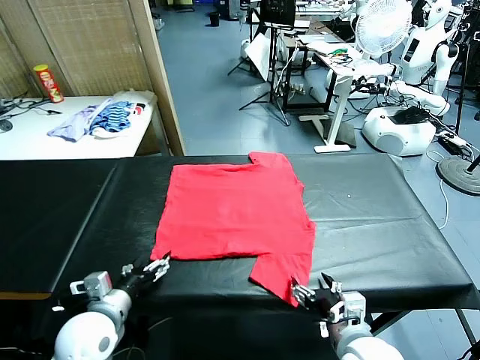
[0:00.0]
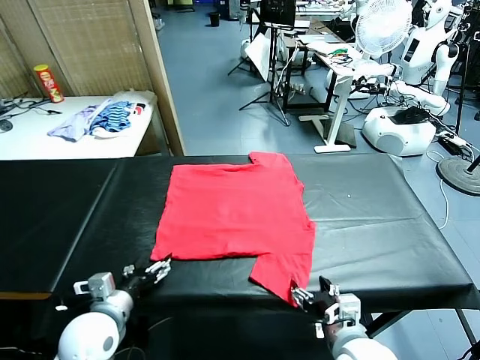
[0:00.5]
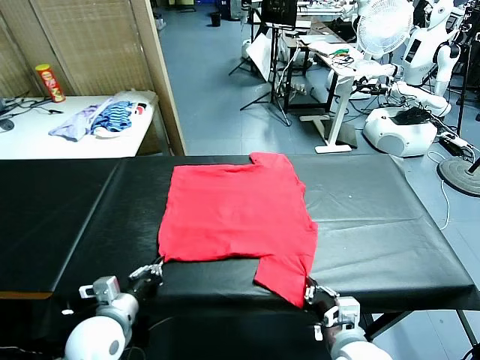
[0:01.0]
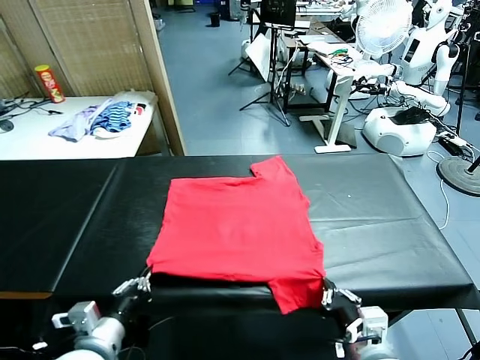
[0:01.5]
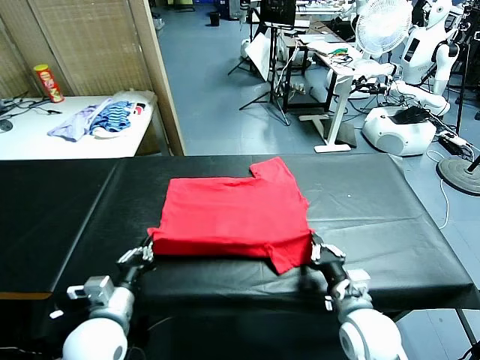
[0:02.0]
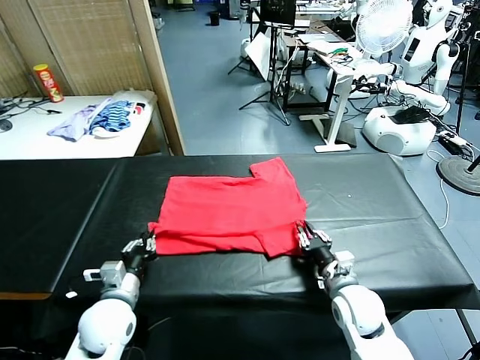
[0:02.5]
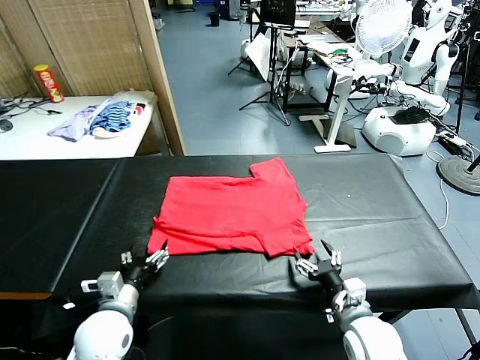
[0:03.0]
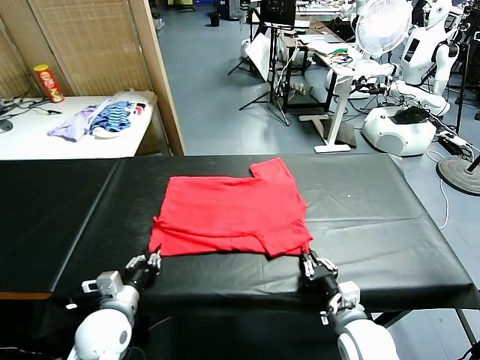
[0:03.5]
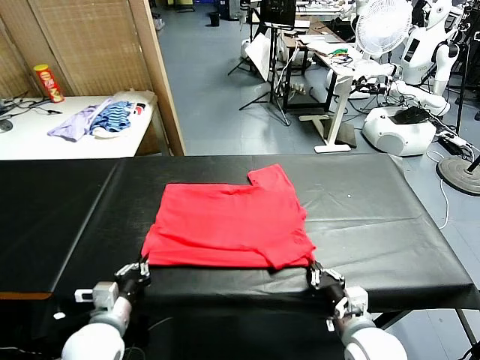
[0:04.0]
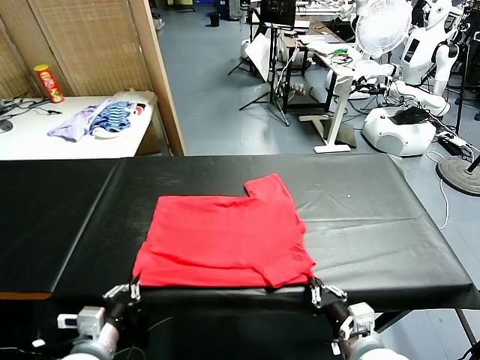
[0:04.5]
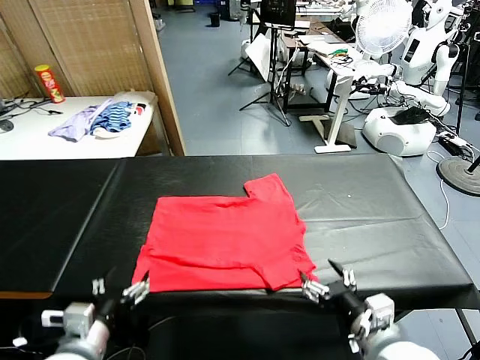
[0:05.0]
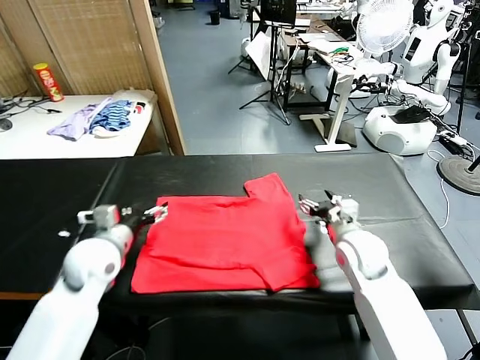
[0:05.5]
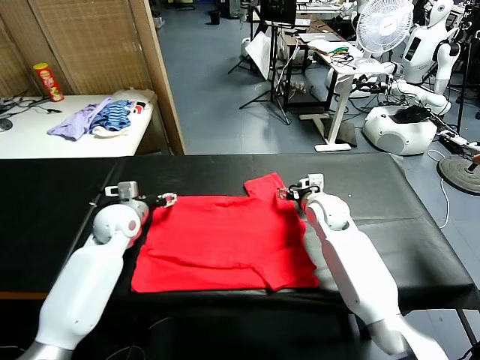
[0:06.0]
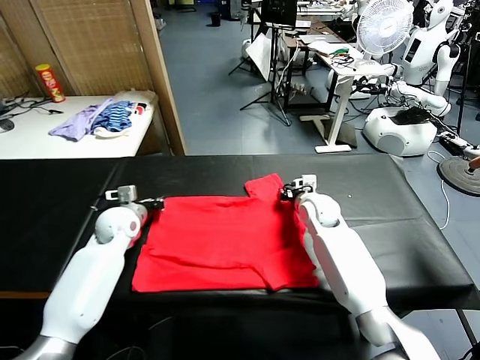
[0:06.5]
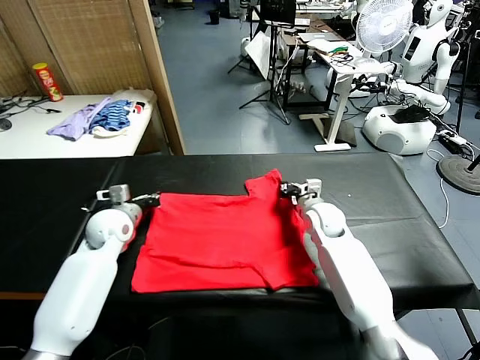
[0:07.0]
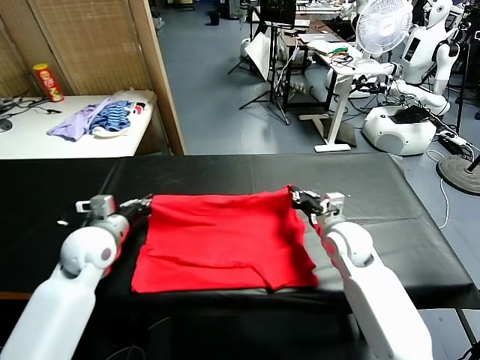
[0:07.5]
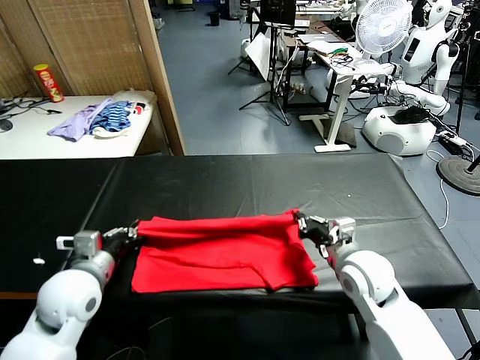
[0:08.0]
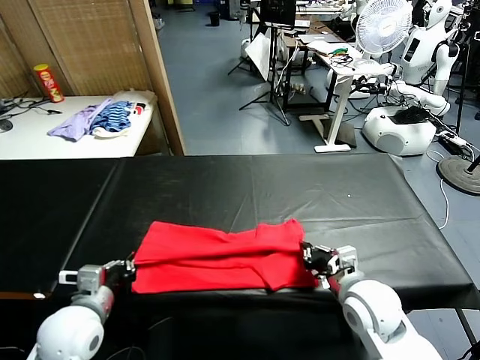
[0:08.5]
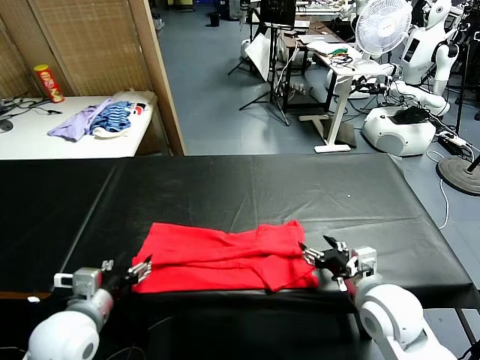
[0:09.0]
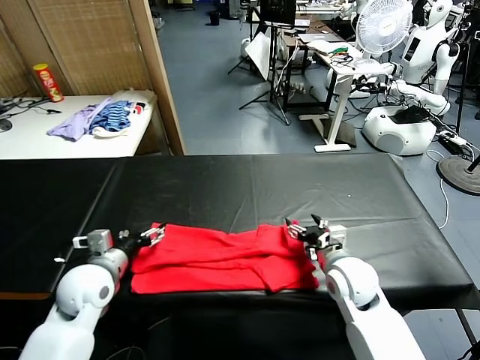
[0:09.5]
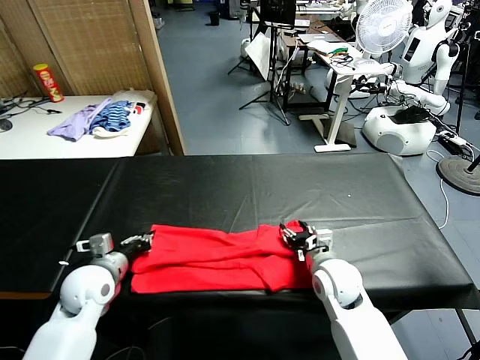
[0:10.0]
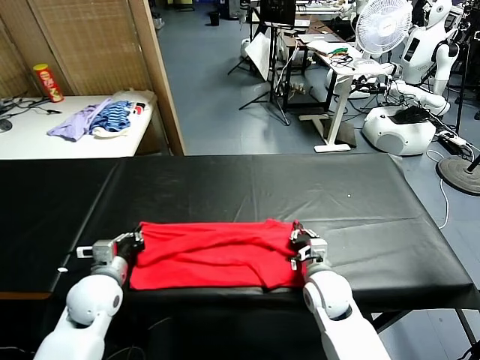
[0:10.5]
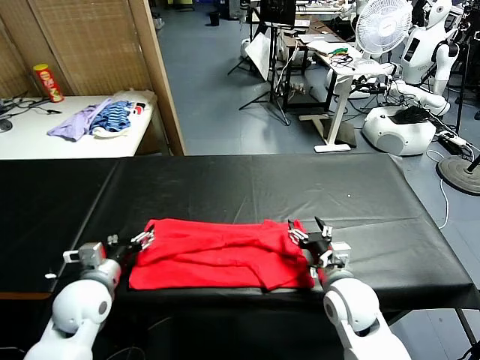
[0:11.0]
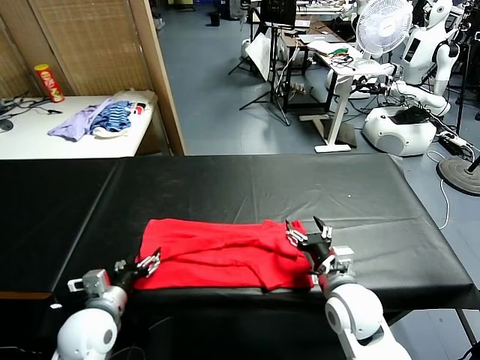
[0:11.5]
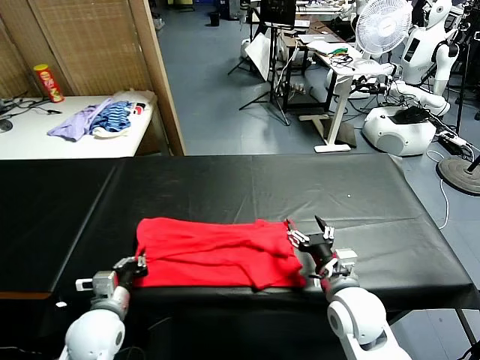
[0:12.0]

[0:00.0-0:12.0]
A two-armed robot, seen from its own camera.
Task of the whole recording: fold and organize the clothes.
Step, 0:00.0 to 0:01.0: use both grippers simultaneously to clamp the lower edge of the clothing fabric.
Step, 0:01.5 to 0:02.5: use both grippers to drag the lower edge of the fabric forward and fold it over the upper edge.
Step, 0:03.0 to 0:04.5: Drag the clothes downward with both gripper.
Step, 0:05.0 to 0:06.5: use both grippers simultaneously to clamp the upper edge of the clothing fabric.
Step, 0:07.5 to 0:09.0: use both grippers to drag the upper edge of the fabric backward and fold it over the lower edge.
0:02.0 to 0:04.0: The left gripper opens, then closes once more; the right gripper goes roughly 10 cm backward, and opens, then closes once more.
0:04.0 to 0:06.0: The two grippers go about 30 cm forward. The right gripper opens its fingers, while the left gripper opens.
0:06.0 to 0:08.0: Both grippers move backward, some 20 cm. The right gripper closes its fingers, while the left gripper closes.
0:08.0 to 0:10.0: The grippers both shift downward by approximately 5 cm. The left gripper opens and closes again; the right gripper opens.
0:10.0 to 0:12.0: The two grippers go about 10 cm backward. The right gripper opens. The left gripper opens and closes again.

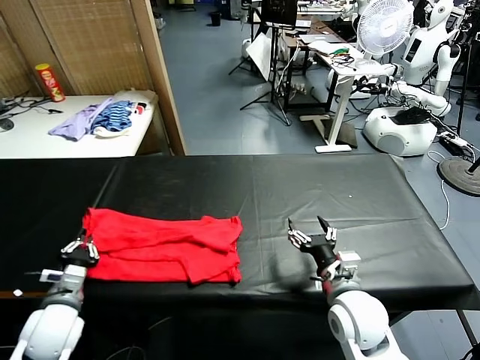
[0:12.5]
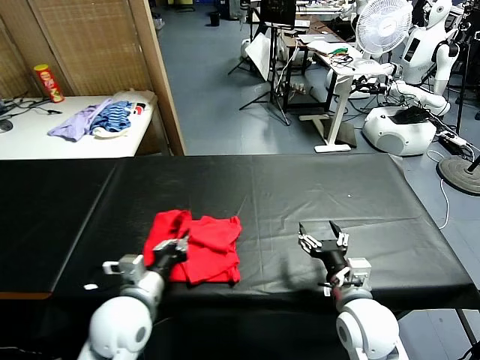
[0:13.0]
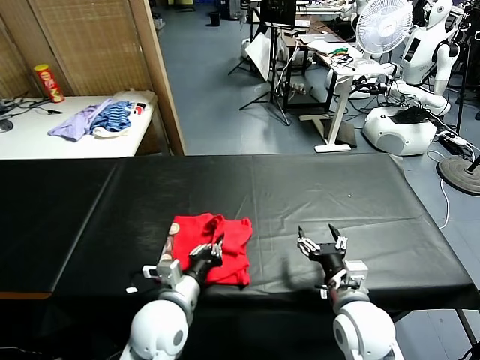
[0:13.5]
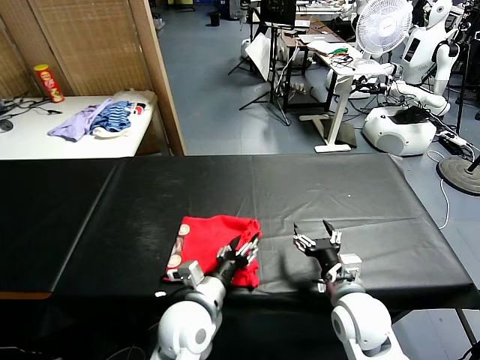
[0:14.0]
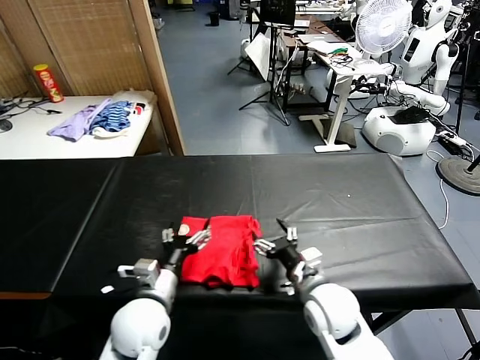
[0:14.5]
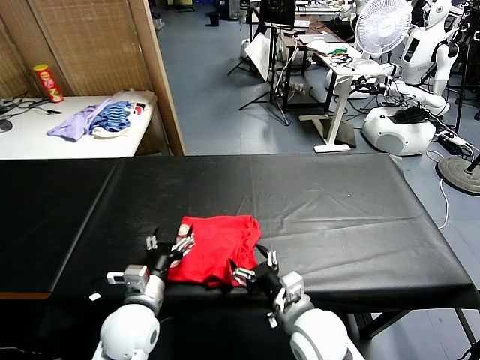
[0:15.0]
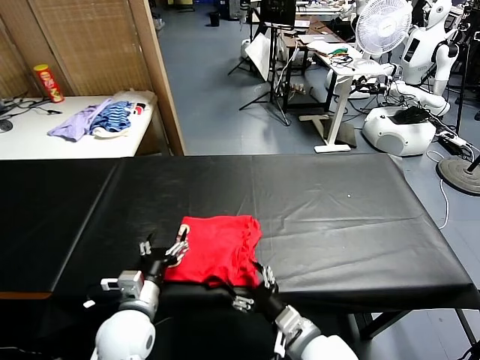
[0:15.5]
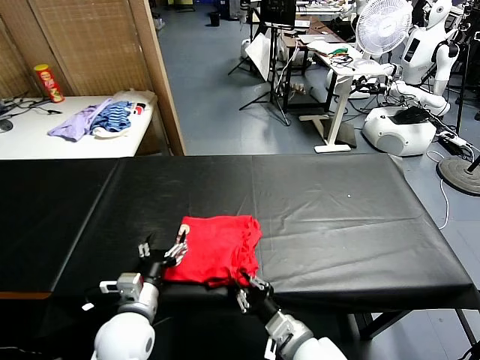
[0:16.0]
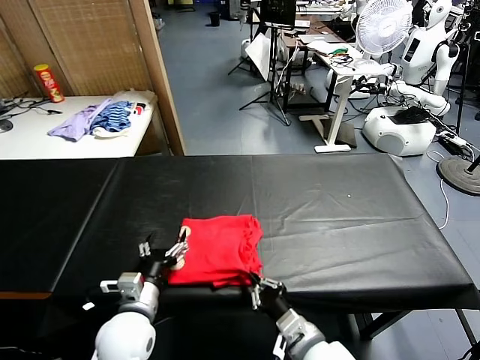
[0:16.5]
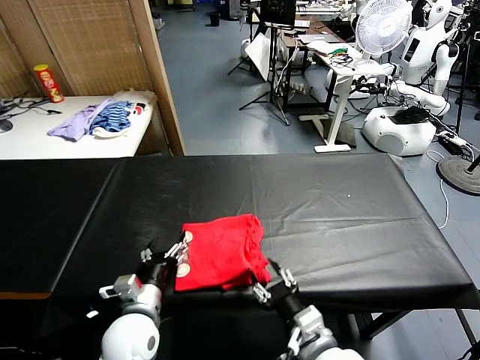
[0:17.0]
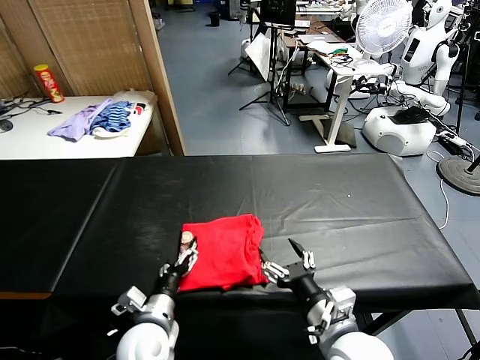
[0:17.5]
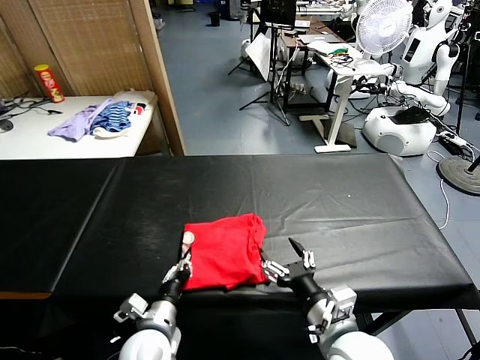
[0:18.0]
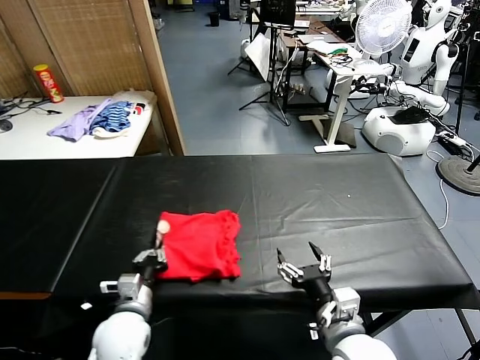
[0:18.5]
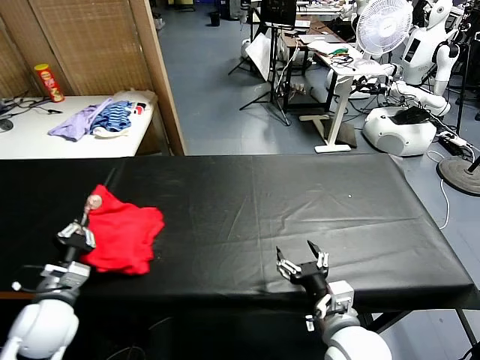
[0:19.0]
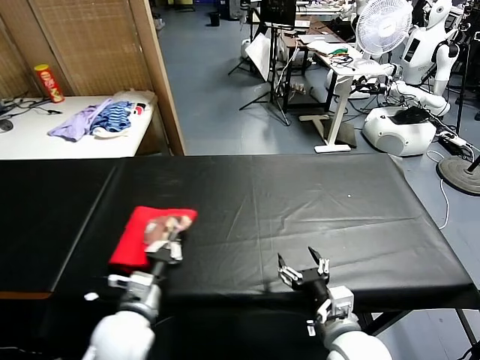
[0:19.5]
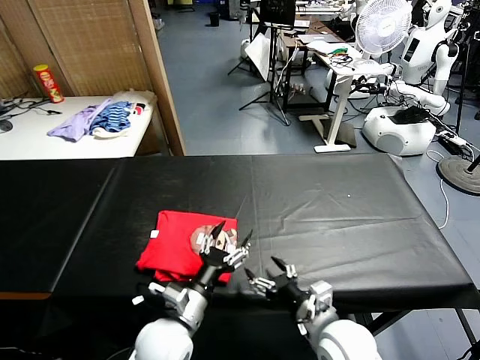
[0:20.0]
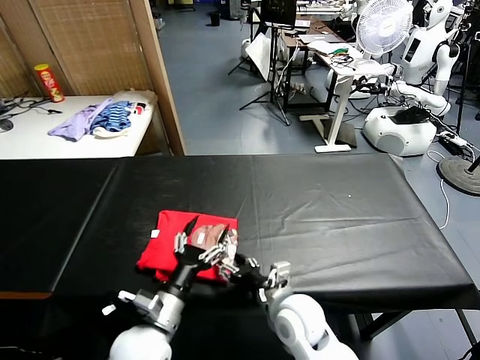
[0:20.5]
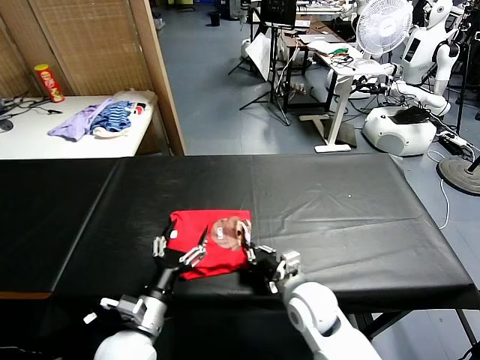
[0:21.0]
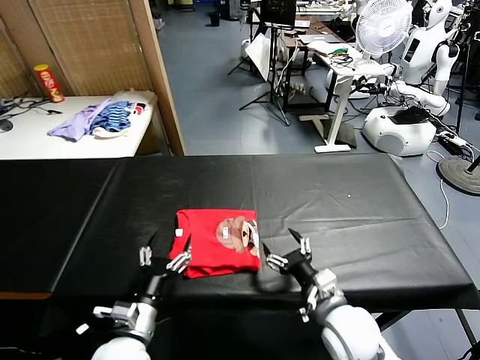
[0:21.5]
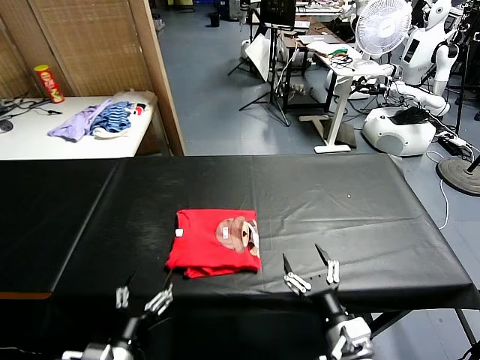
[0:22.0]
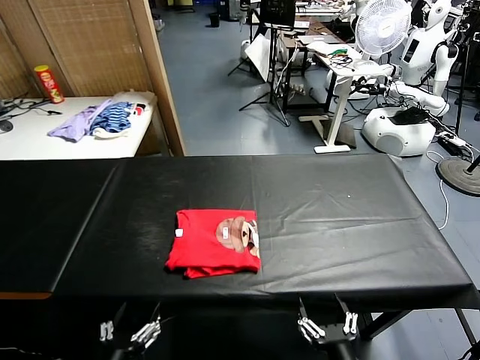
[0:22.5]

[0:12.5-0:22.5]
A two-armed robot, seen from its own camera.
Task of the whole recording: fold and organize the clothes.
Step, 0:12.5 to 0:14.0: use the left gripper to drag the left edge of the fabric to the left and folds it over the right edge.
Step, 0:14.5 to 0:19.5: Flip the folded clothes over with left gripper.
Step, 0:20.5 to 0:21.5: Drag the clothes to the center of the table.
0:12.5 to 0:14.5: The right gripper goes roughly 5 cm to the left, while the left gripper goes about 15 cm to the right, and opens up.
0:14.5 to 0:16.5: The right gripper goes roughly 10 cm backward, and closes.
0:16.5 to 0:18.5: The right gripper goes roughly 5 cm upward, and opens its fingers. Meanwhile the left gripper closes its fingers.
0:18.5 to 0:20.5: The right gripper shifts roughly 15 cm forward, to the left and downward. The left gripper travels to the left and back again, some 10 cm each way, and opens.
0:20.5 to 0:22.5: The left gripper goes about 15 cm backward and to the left, while the right gripper travels backward and to the right by roughly 20 cm, and closes, then opens again.
